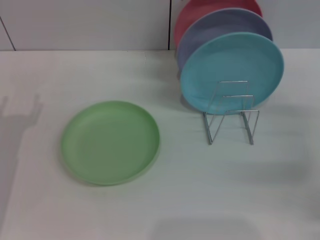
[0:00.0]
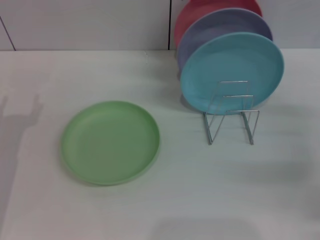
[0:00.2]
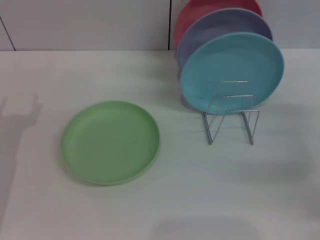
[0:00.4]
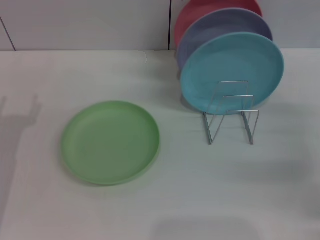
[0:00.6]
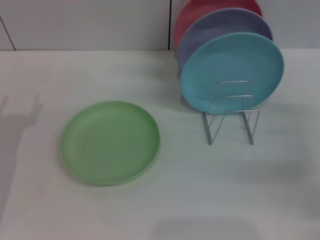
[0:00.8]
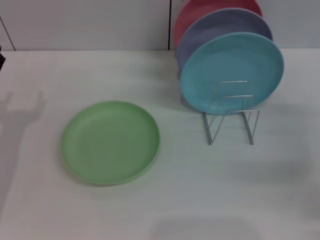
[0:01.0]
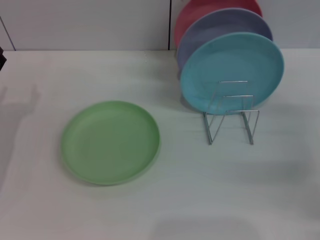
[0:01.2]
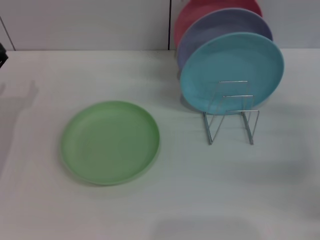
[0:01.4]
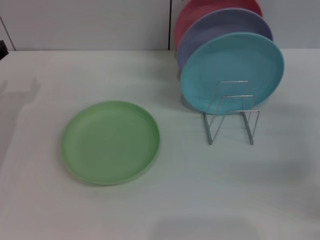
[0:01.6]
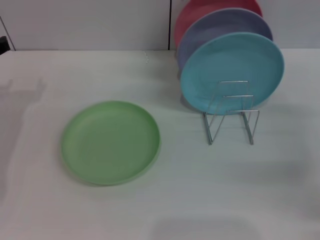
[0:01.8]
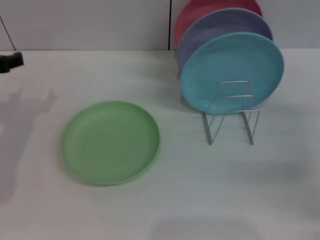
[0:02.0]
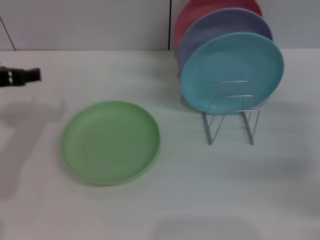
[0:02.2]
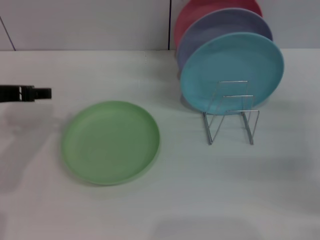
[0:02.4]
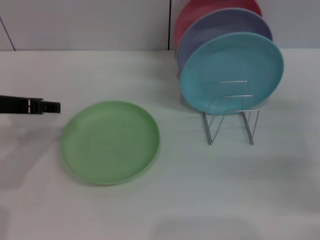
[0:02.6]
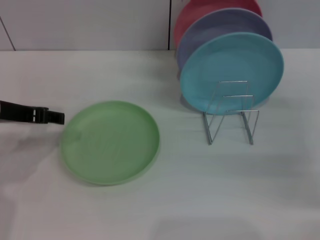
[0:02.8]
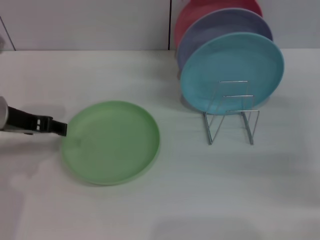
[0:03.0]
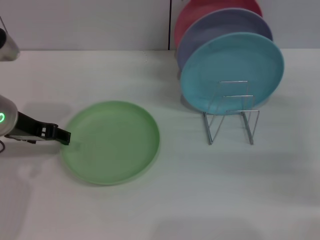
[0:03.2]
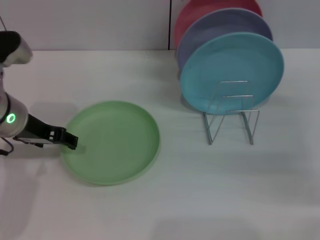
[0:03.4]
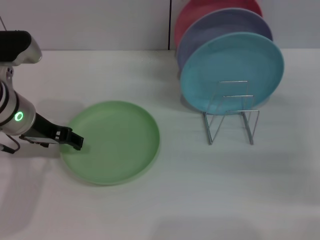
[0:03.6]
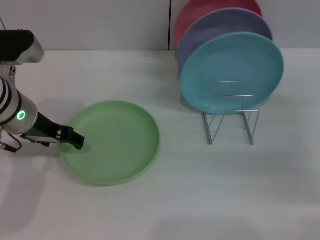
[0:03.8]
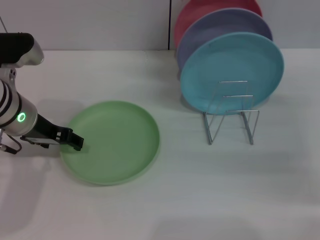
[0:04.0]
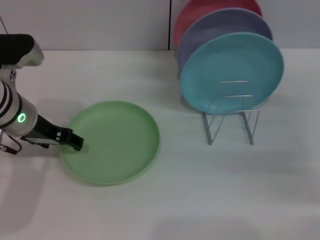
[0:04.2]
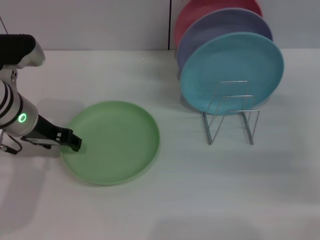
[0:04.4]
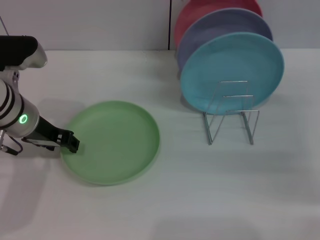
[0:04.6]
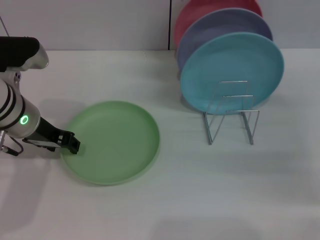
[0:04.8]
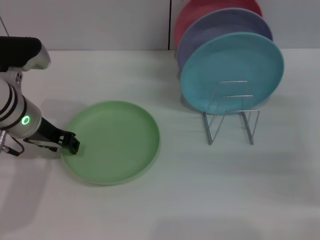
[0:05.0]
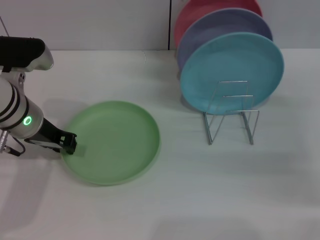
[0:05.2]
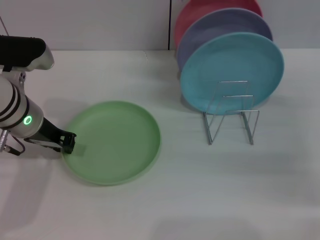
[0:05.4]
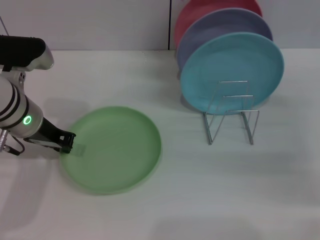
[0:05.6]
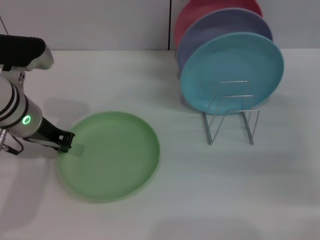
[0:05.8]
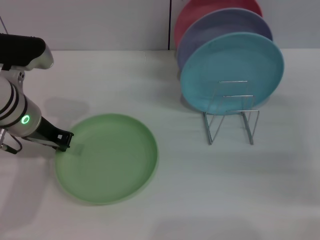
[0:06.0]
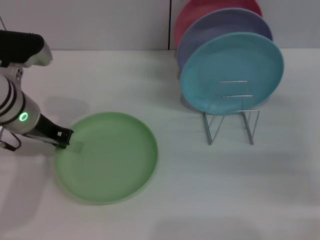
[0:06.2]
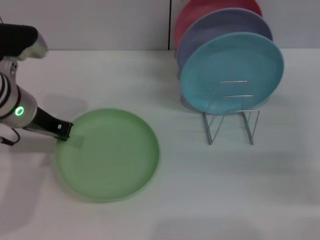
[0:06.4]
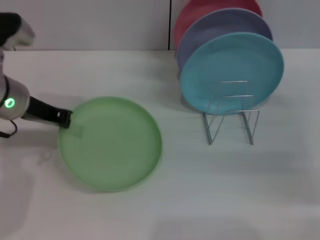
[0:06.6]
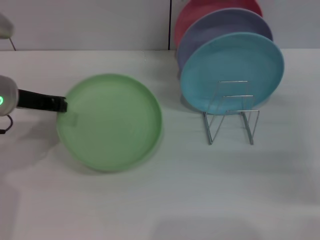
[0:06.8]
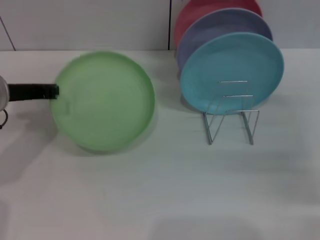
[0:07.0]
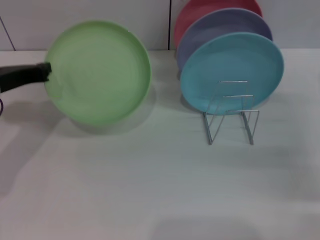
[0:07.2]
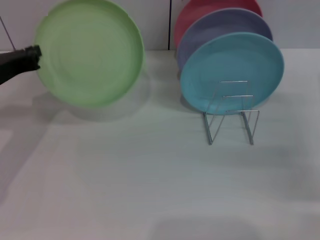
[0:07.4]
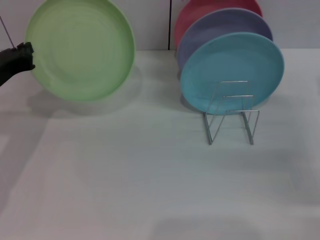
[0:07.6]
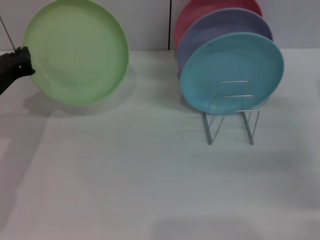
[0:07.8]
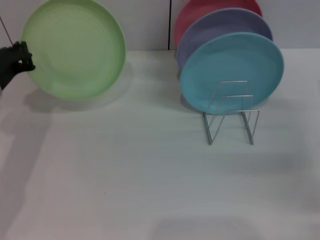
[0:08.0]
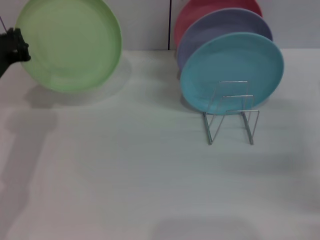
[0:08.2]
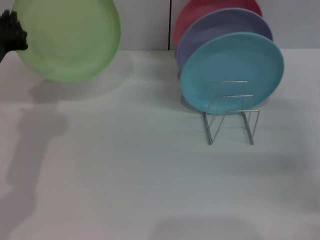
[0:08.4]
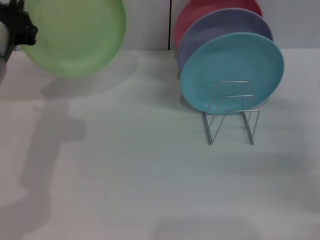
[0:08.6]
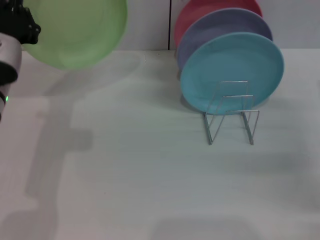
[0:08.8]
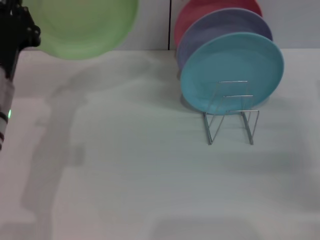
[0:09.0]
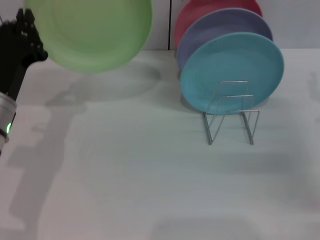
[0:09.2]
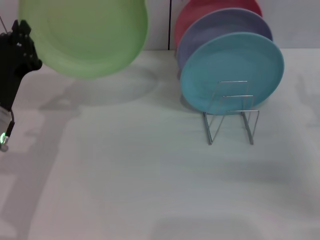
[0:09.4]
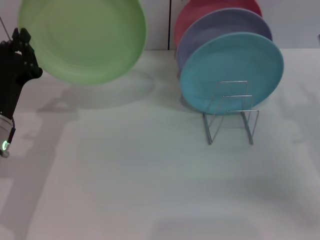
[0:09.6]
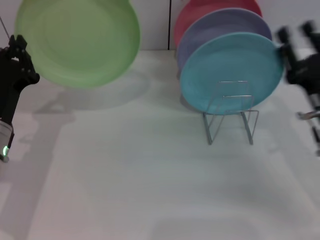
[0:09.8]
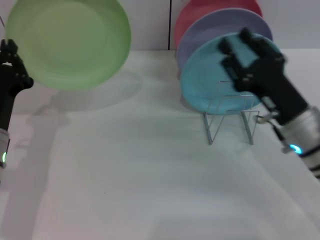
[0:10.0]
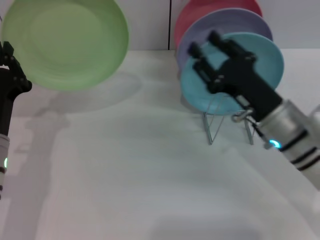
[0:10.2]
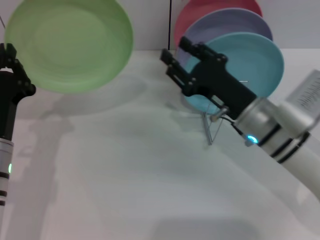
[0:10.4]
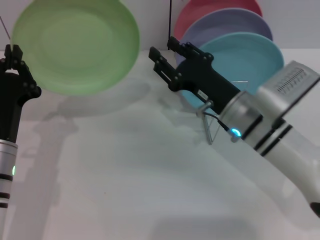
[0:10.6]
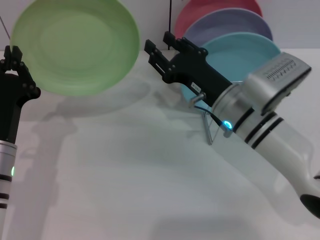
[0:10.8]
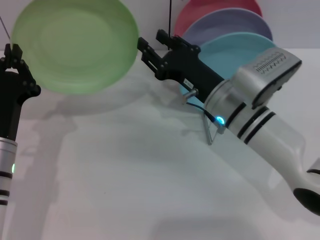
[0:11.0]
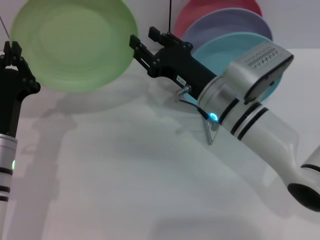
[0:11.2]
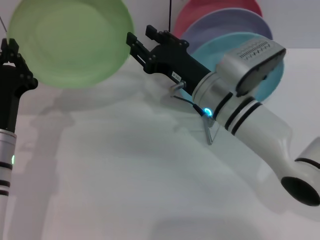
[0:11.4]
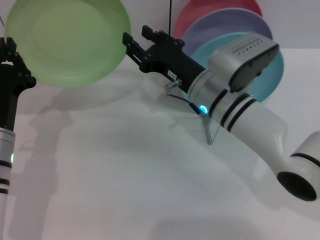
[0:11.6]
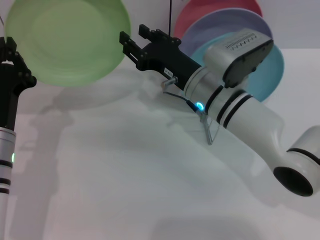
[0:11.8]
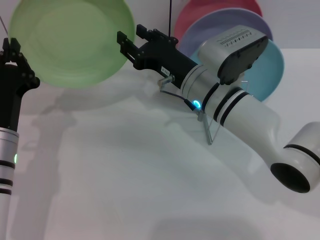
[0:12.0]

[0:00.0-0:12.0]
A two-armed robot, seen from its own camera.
Task of the whole recording: Grip the plate with one hand, pass it to the other, then set it on the shelf.
Step, 0:00.0 to 0:08.4: Pick up the plate with the left gripper.
0:01.6 to 0:03.0: The left gripper travels to the right by approximately 10 cm.
0:03.0 to 0:04.4: The grippers stay close to where they were, moving slightly.
0:04.4 to 0:06.0: The left gripper closes.
0:06.0 to 0:07.6: The left gripper moves to the left, about 5 cm.
0:07.6 to 0:09.0: The left gripper travels to the right by some 5 cm.
0:09.0 to 0:10.4: The right gripper heads to the left, covering roughly 20 cm. The left gripper travels downward by approximately 5 cm.
0:10.4 to 0:12.0: The right gripper travels to the left by about 5 cm.

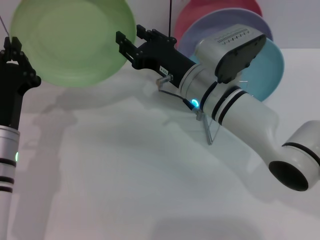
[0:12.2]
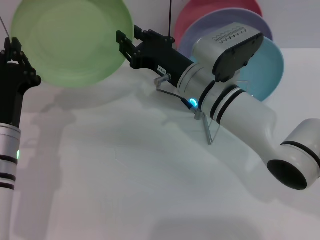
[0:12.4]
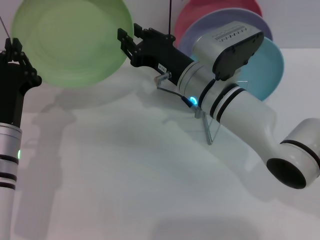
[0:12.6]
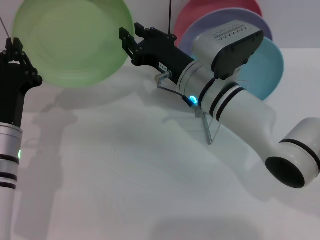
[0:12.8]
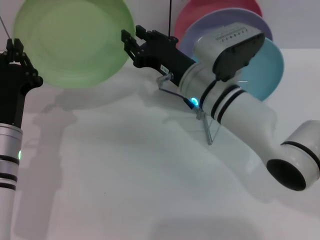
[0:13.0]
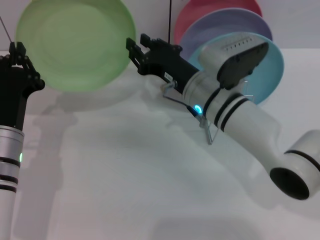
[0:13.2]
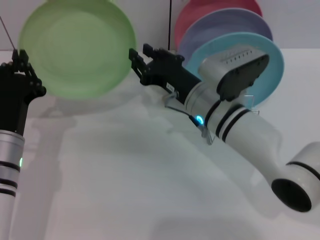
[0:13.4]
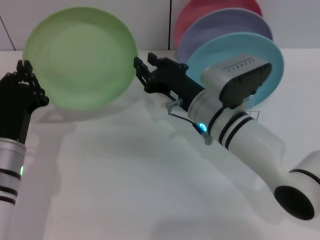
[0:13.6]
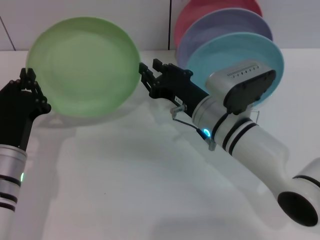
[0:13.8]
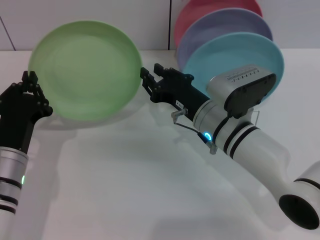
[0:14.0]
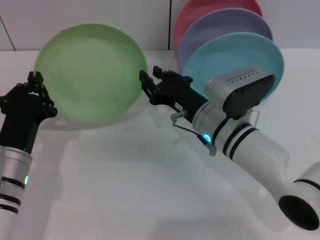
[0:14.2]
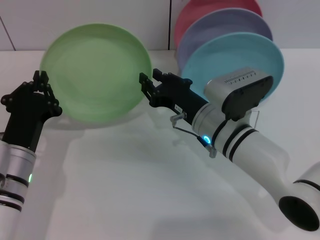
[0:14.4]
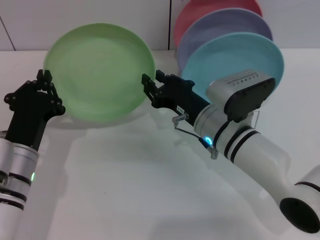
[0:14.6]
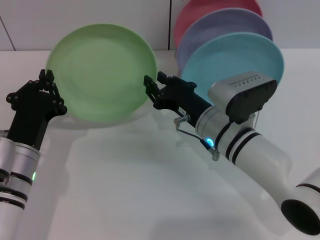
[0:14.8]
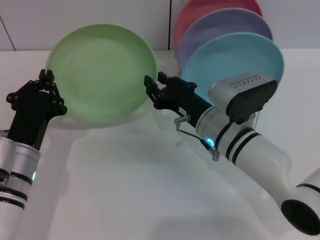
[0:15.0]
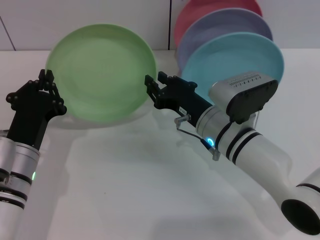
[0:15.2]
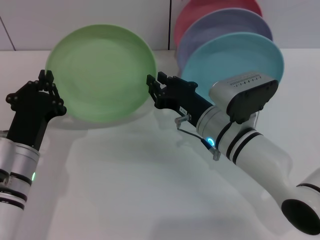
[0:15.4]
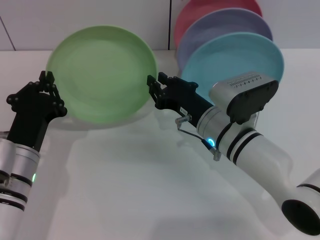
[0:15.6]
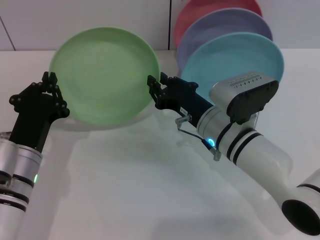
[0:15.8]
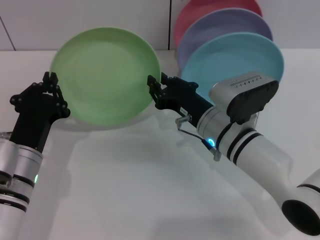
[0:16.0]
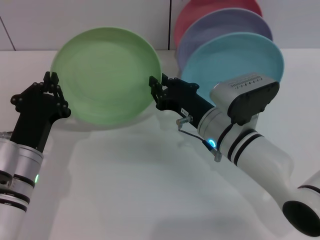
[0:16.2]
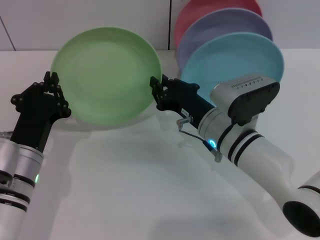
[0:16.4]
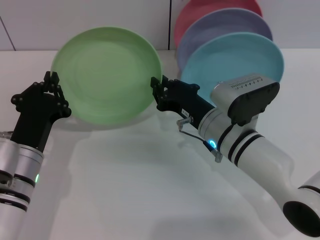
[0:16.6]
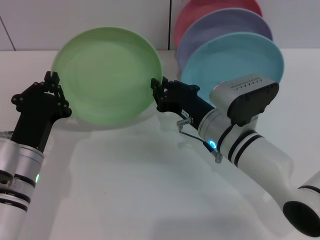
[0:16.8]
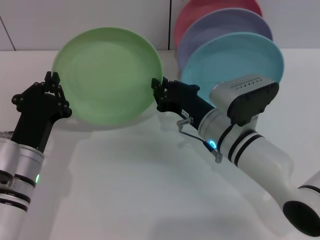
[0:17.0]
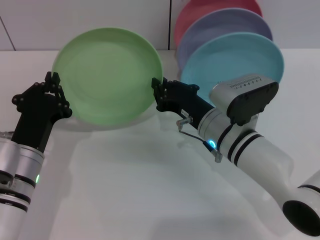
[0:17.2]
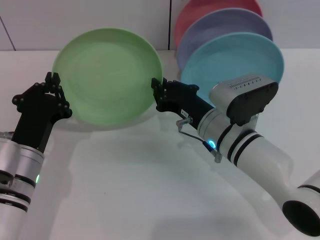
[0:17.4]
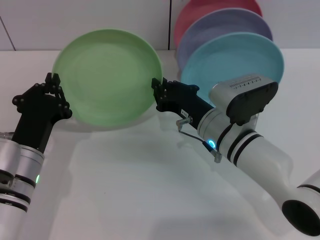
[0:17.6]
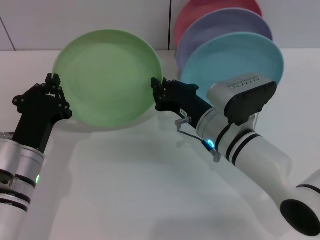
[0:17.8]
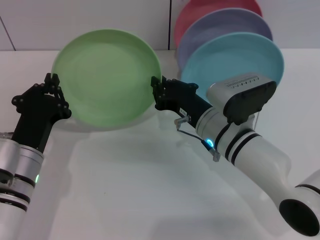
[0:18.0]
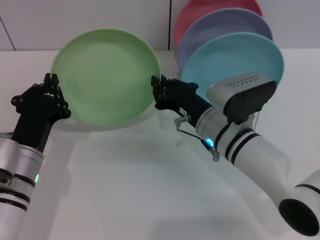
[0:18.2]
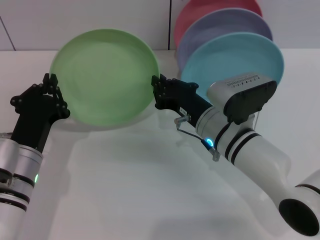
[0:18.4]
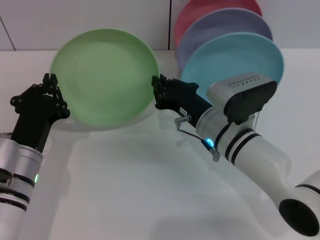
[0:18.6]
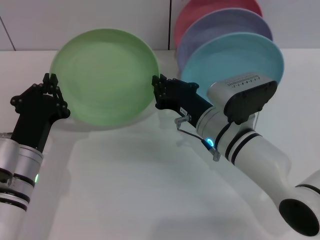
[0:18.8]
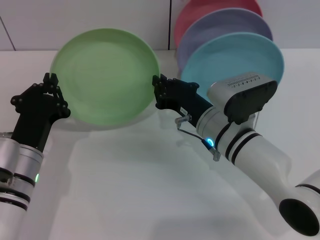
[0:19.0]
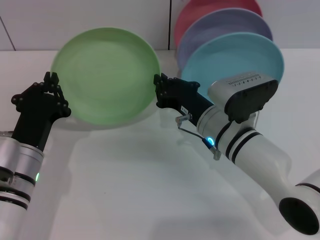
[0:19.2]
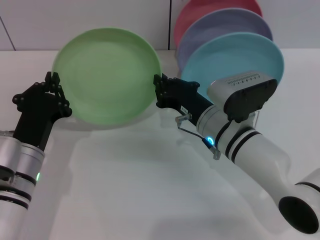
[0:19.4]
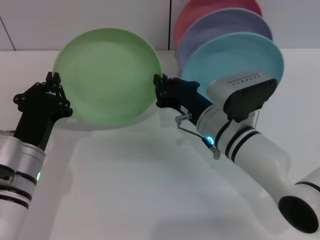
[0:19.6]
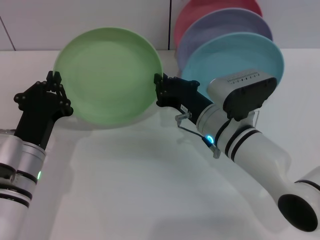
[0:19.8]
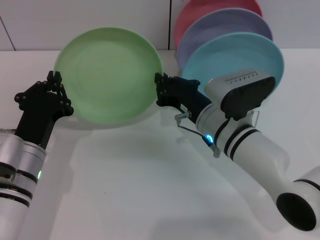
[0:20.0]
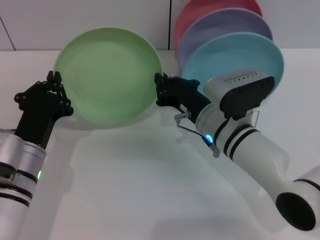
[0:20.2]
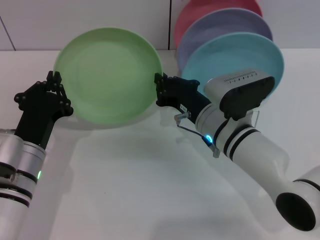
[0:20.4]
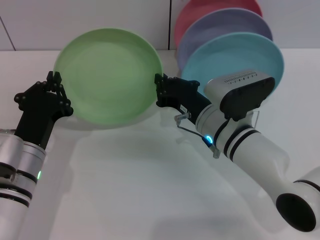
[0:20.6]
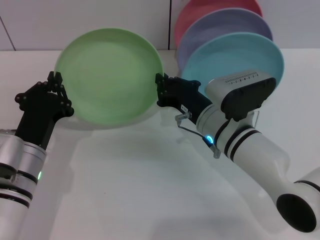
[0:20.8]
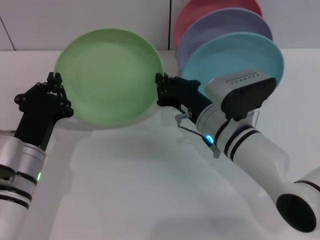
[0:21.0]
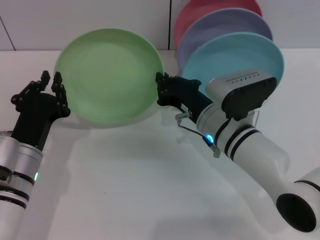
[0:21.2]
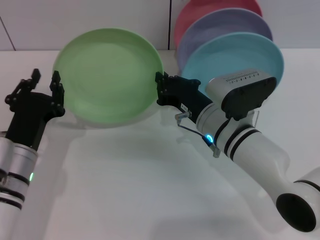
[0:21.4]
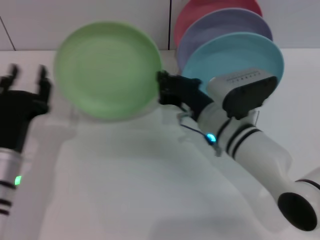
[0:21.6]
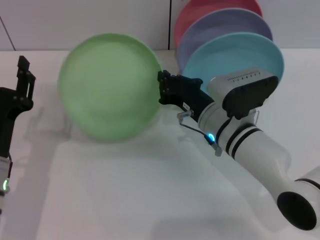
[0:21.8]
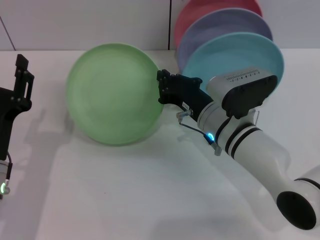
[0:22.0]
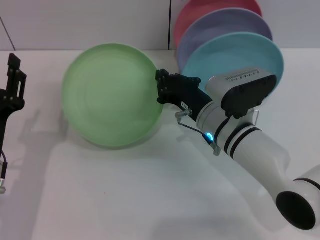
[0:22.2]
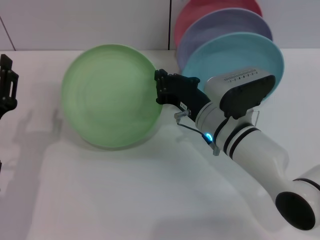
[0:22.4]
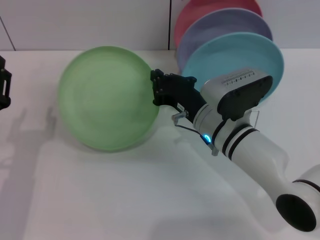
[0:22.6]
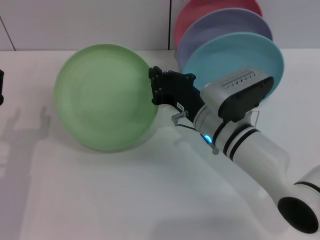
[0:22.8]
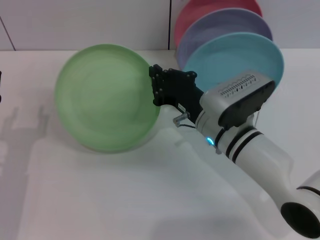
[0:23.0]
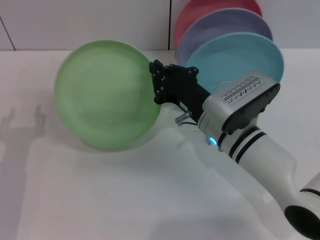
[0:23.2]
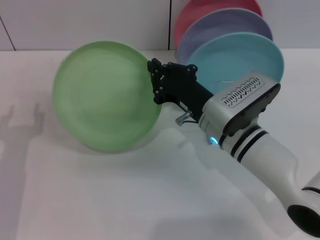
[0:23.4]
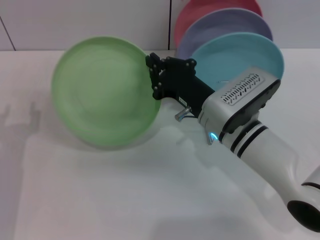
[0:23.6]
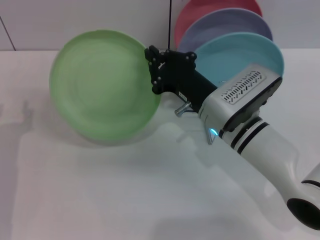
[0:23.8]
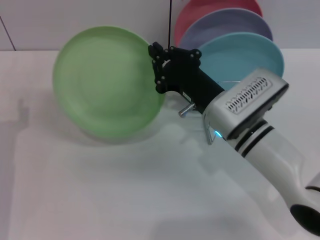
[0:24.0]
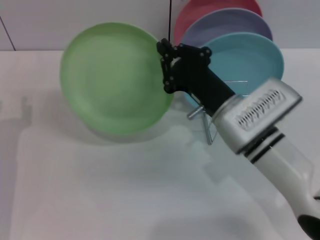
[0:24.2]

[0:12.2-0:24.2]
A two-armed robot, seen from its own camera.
Task of the whole recording: Grip the plate with one hand, pass it to the other, then set it on the shelf.
0:12.2 to 0:13.8: The right gripper shifts by about 5 cm.
0:13.8 to 0:15.2: Both grippers stay put.
0:15.2 to 0:21.2: Both grippers stay about where they are.
0:21.2 to 0:22.6: The left gripper ends up approximately 5 cm from where it was, and opens.
